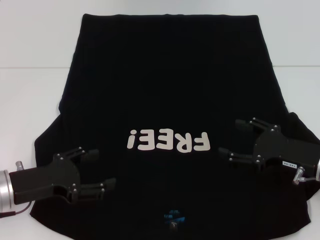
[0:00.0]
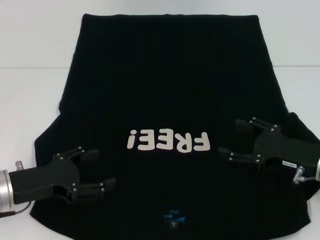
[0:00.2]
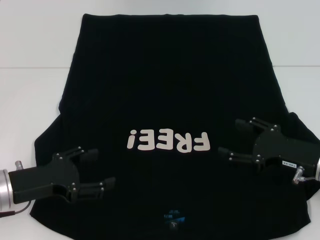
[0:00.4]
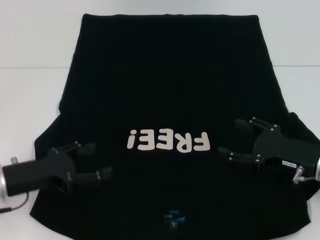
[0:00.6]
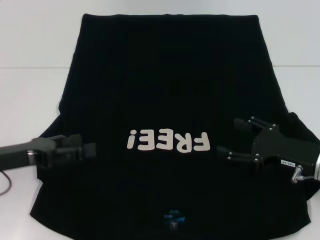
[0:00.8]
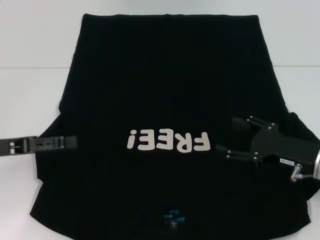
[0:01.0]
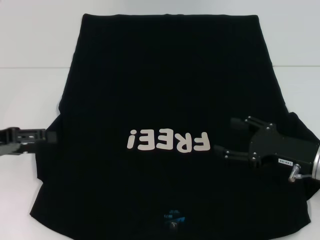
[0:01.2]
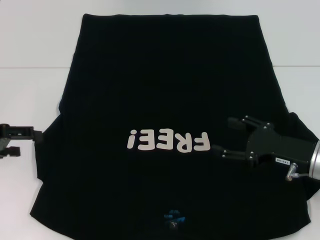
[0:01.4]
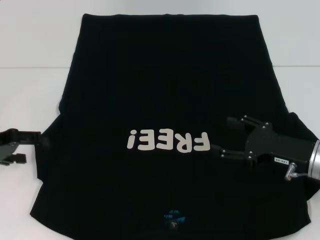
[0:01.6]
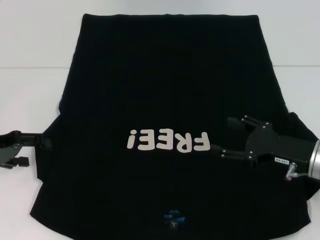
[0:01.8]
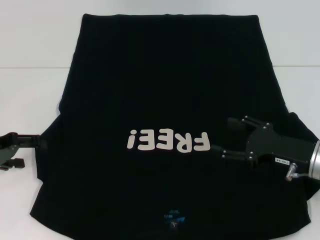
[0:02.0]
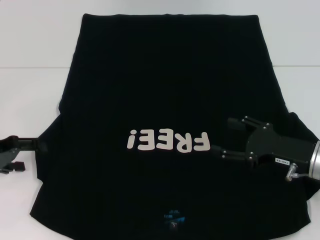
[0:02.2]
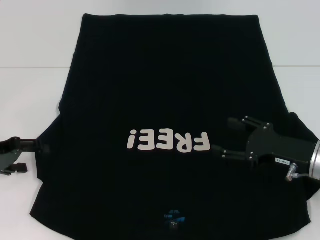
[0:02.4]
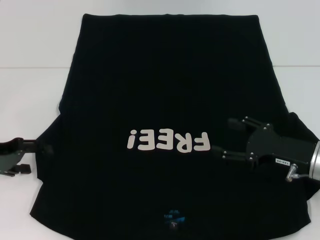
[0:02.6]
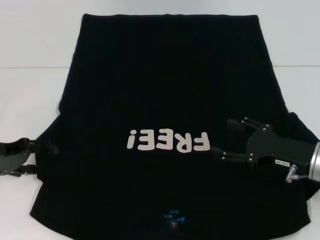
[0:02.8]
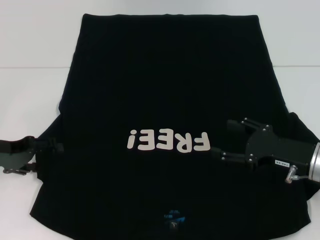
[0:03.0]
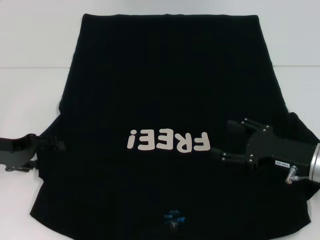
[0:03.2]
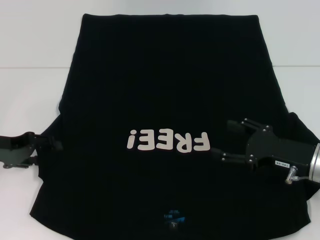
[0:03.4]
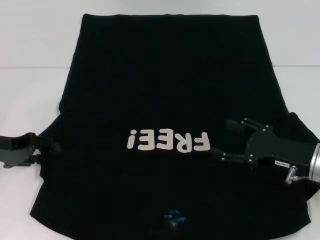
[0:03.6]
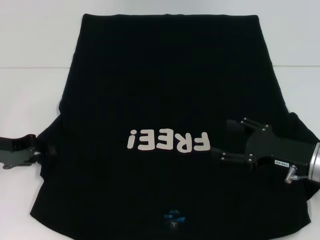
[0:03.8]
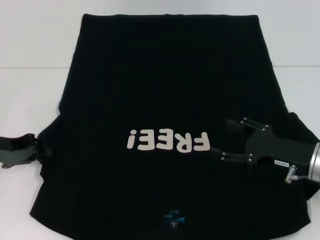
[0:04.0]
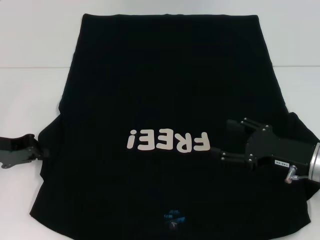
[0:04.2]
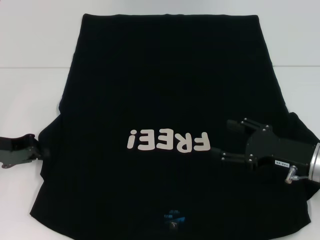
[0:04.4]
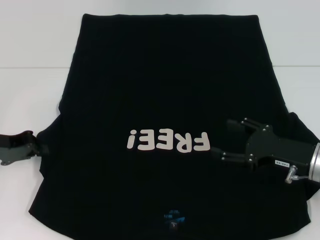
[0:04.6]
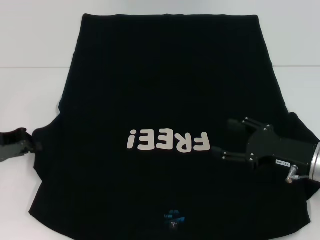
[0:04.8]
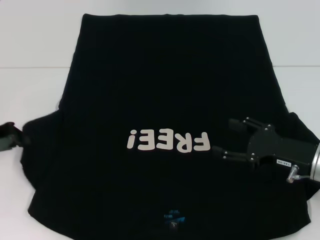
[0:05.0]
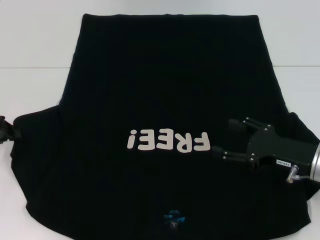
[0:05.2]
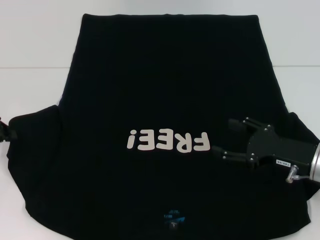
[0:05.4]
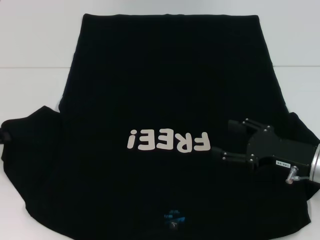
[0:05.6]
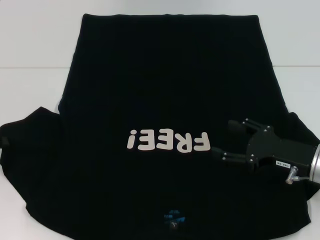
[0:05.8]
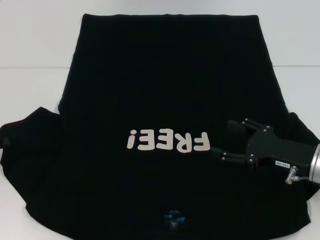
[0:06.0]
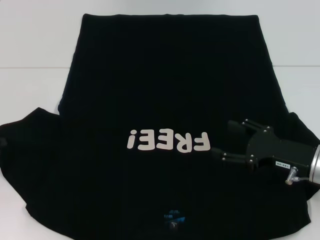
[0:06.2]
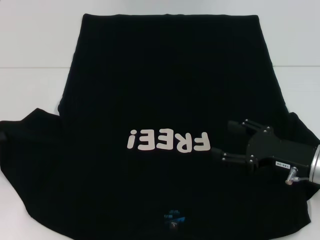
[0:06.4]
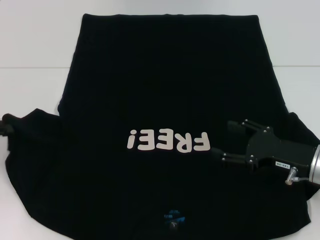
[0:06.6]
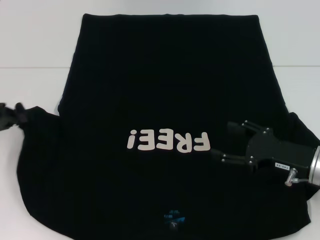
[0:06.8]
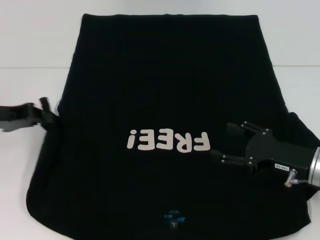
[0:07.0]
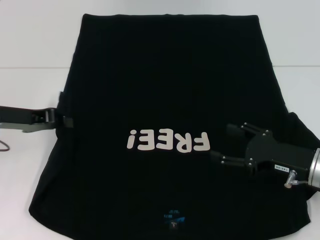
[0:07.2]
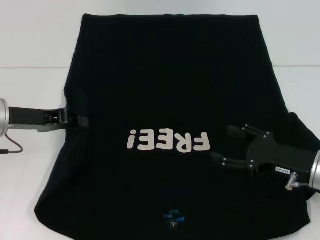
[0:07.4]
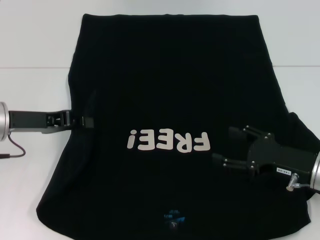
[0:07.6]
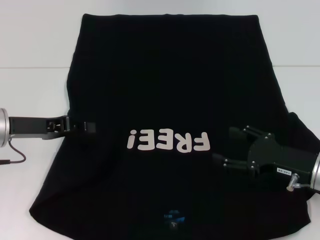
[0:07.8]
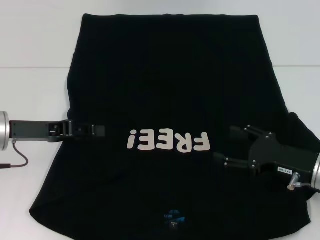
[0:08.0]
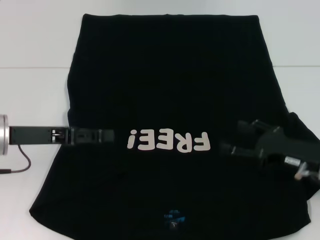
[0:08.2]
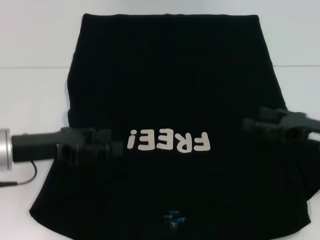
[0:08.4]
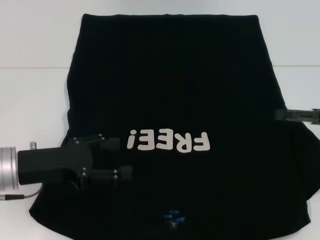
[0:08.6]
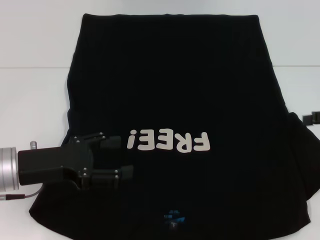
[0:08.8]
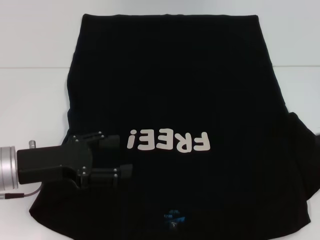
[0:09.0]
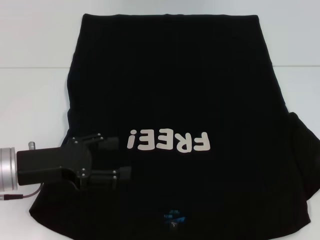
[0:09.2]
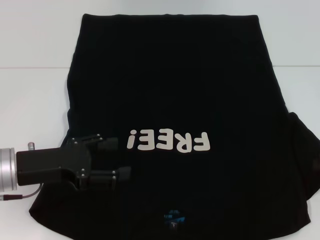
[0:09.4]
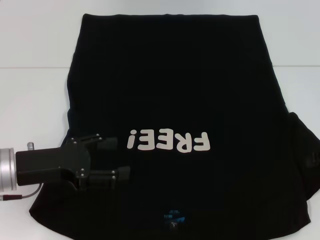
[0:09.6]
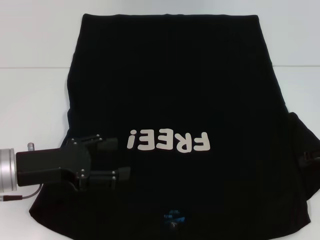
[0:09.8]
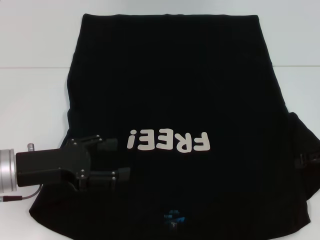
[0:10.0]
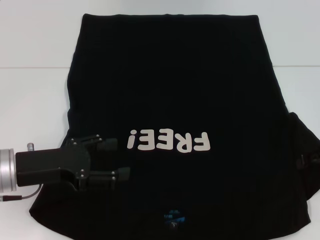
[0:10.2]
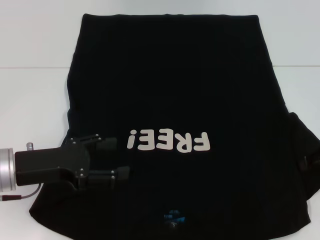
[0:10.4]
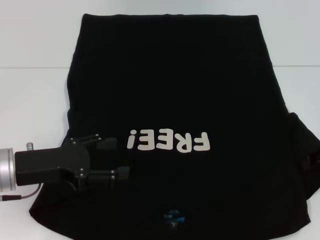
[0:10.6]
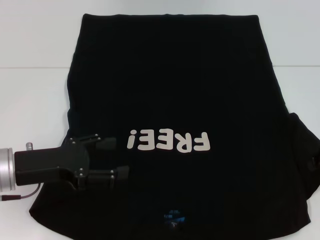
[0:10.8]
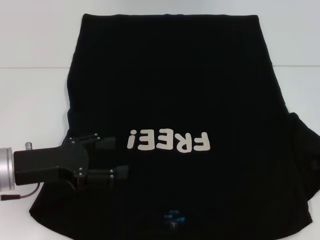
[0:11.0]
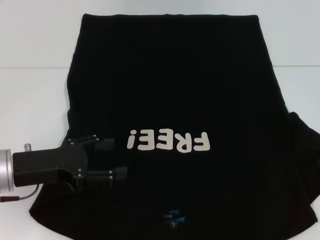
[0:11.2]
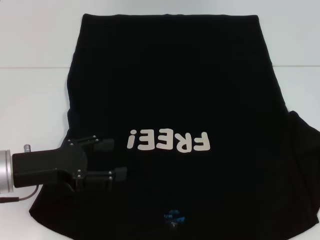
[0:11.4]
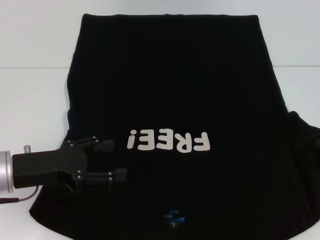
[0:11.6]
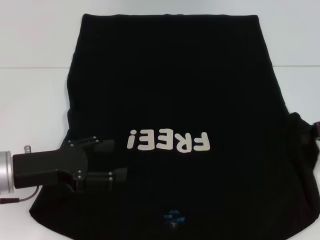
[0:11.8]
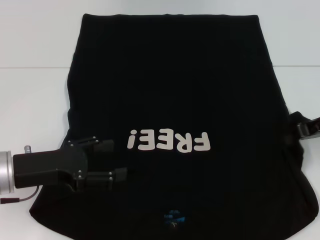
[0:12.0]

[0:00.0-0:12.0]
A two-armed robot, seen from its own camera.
Step, 0:00.0 to 0:08.0: Fold the bottom left sleeve with your left hand.
0:00.0 to 0:01.6: The left gripper is displaced to the left, forward and upward by some 10 cm.
0:01.6 to 0:03.0: The grippers stay close to where they were, moving slightly.
0:03.0 to 0:04.4: The left gripper closes.
0:04.4 to 0:06.0: The left gripper heads to the left, covering some 5 cm.
0:06.0 to 0:07.6: The left gripper is displaced to the right by some 10 cm.
0:07.6 to 0:09.0: The left gripper shifts approximately 5 cm backward, and opens; the right gripper heads to the right and upward, covering some 15 cm.
0:10.4 to 0:12.0: The right gripper changes place by roughly 5 cm, and closes.

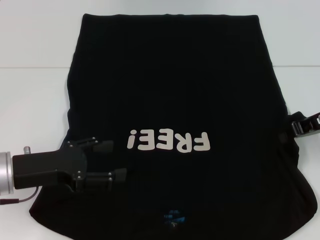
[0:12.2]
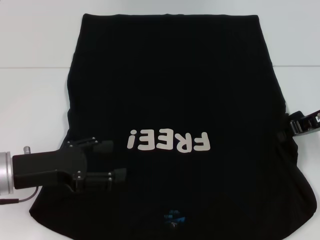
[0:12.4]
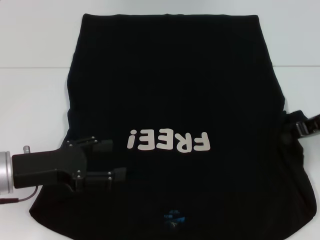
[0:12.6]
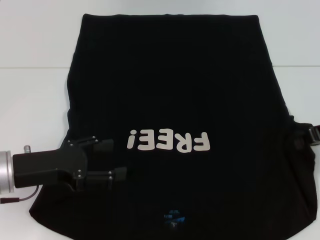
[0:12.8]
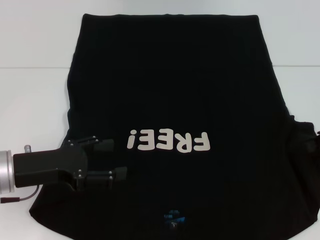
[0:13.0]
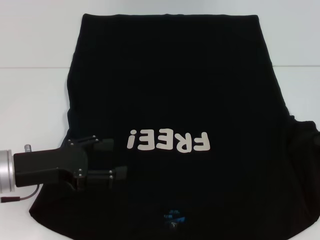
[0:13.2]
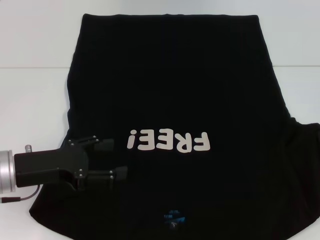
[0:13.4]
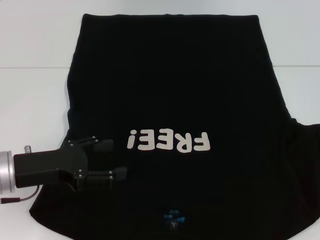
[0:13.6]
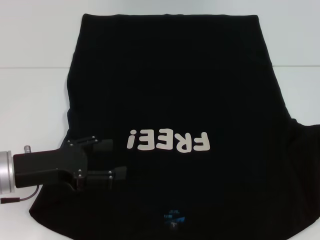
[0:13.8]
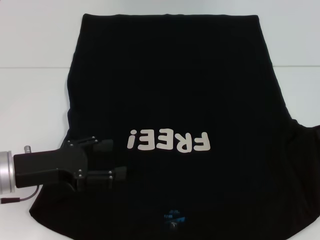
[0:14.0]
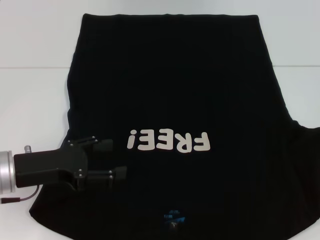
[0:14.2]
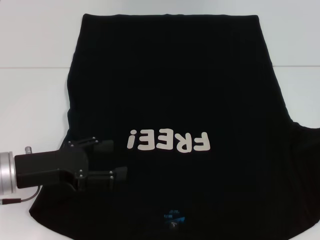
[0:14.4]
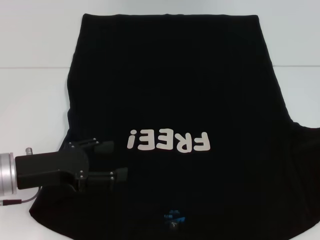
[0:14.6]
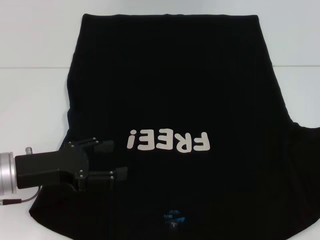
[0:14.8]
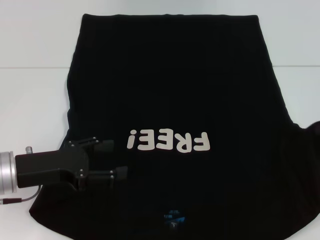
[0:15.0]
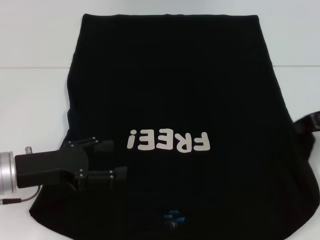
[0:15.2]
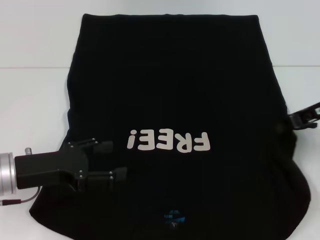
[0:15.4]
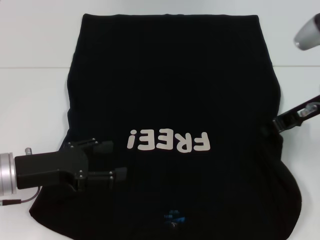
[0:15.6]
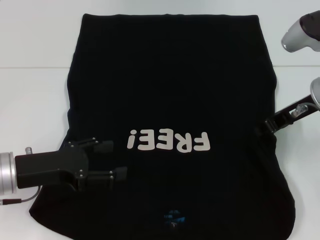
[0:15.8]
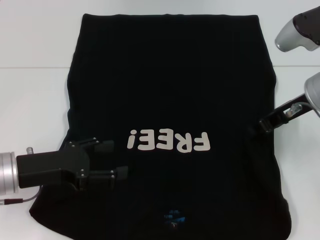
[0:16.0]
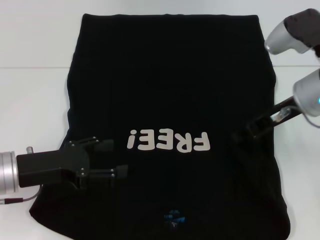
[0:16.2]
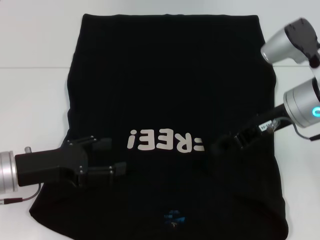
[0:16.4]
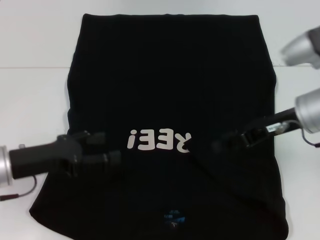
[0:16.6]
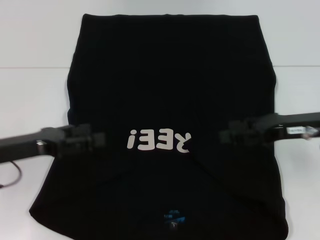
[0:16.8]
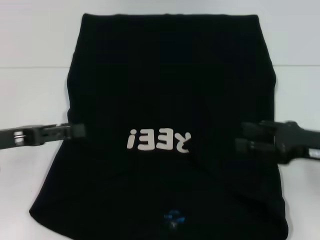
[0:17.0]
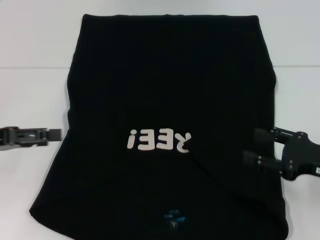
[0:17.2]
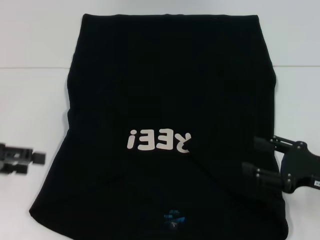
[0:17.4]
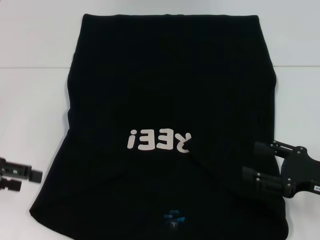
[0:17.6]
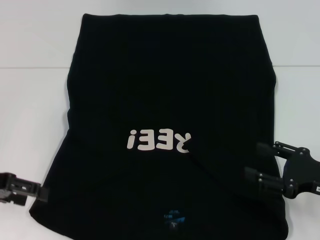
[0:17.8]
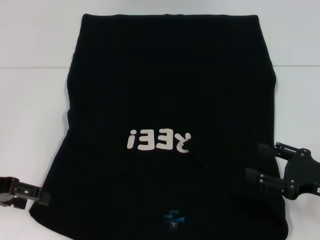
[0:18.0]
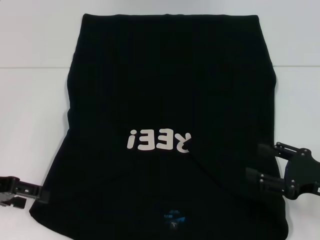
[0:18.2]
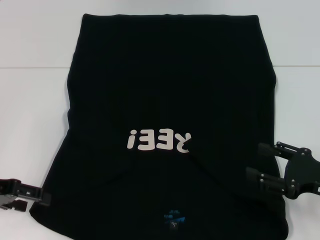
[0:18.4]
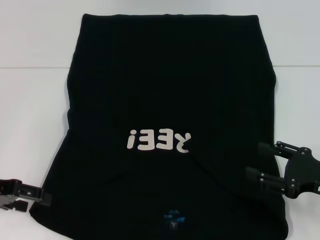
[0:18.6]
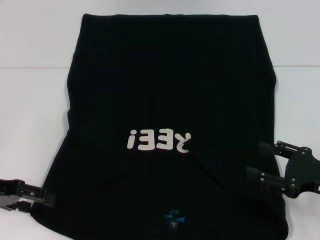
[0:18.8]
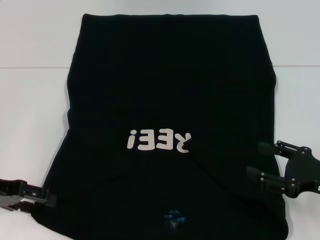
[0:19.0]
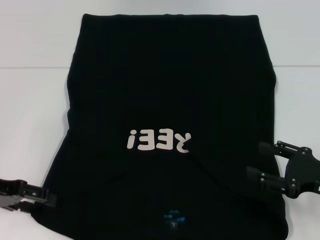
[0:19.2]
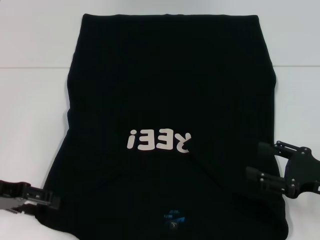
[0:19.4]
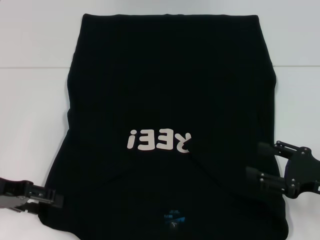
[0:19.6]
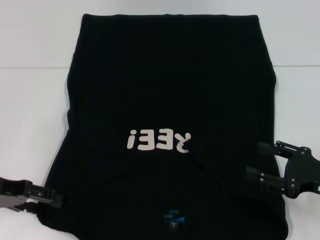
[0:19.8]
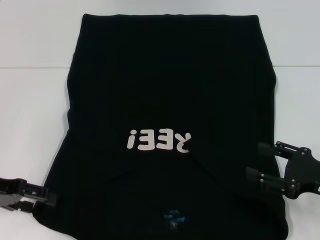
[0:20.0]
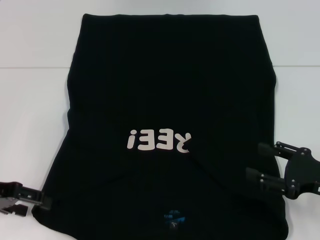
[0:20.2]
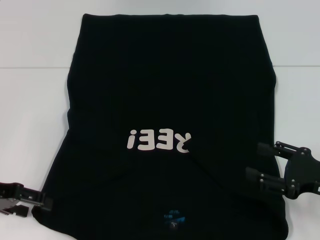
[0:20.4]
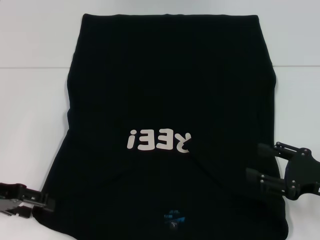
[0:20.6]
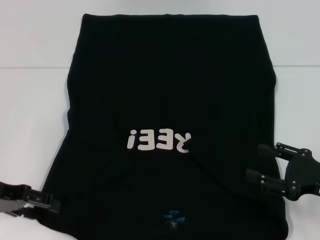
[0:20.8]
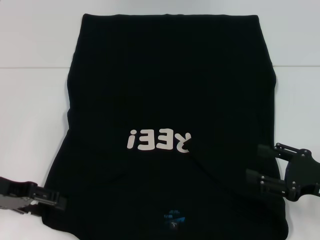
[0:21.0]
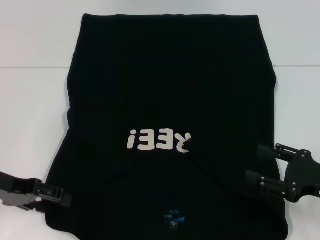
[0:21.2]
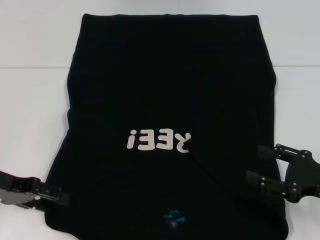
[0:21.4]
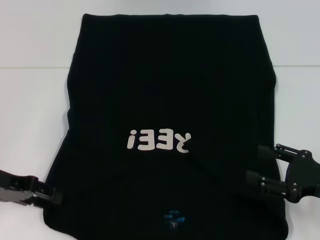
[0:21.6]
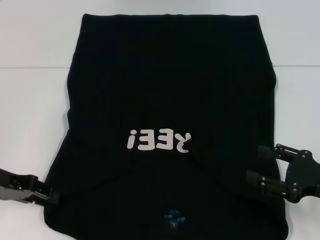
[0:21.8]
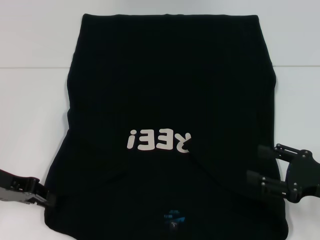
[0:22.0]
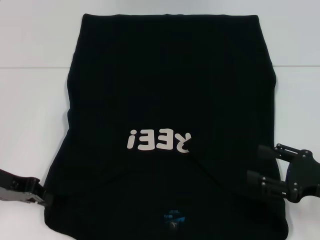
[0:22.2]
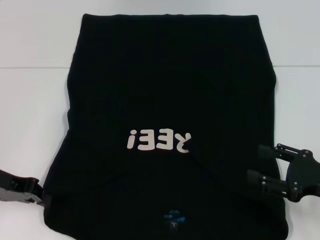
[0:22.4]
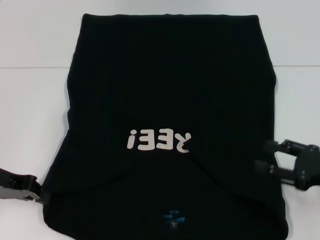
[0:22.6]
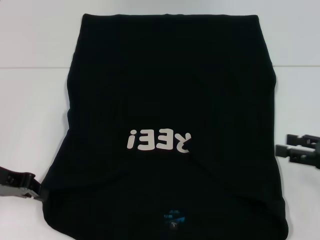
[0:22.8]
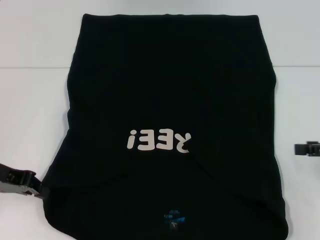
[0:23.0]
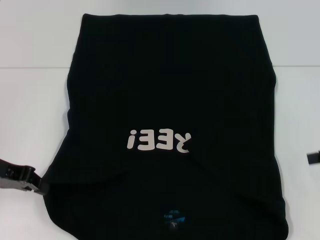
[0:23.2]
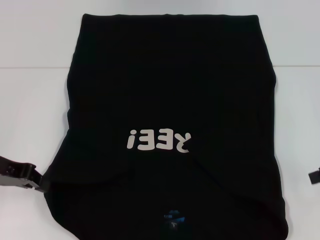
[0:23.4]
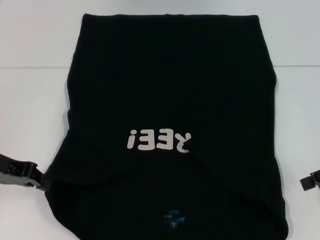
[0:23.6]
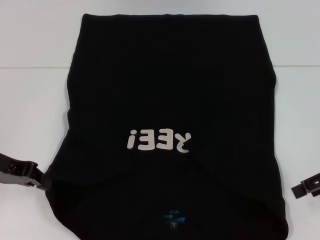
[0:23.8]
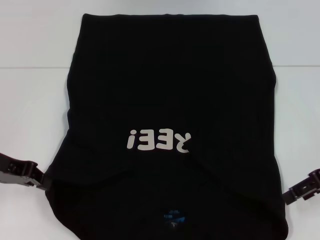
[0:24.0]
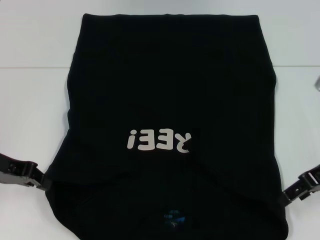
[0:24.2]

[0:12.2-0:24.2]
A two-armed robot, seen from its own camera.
Step, 0:12.2 to 0:16.4: Fold the bottom right sleeve with your right hand.
Step, 0:16.6 to 0:22.4: Grab the bottom left corner with your left hand.
0:12.2 to 0:13.8: The right gripper is displaced to the right by some 5 cm.
0:13.8 to 0:15.2: There are only small adjustments of the grippers.
0:15.2 to 0:16.6: The right gripper travels to the left by about 10 cm.
0:16.6 to 0:18.2: The left gripper travels to the left by some 5 cm. Meanwhile the right gripper shifts roughly 15 cm backward, downward and to the right, and opens.
0:18.2 to 0:19.8: The grippers stay close to where they were, moving slightly.
0:19.8 to 0:21.2: The two grippers keep their place.
0:21.2 to 0:22.6: The left gripper closes.
0:22.6 to 0:24.2: The right gripper shifts some 10 cm forward and upward.
